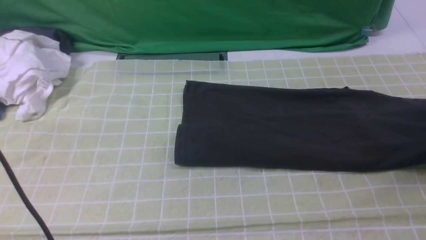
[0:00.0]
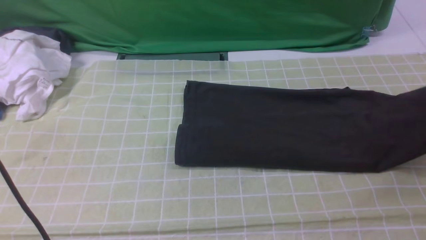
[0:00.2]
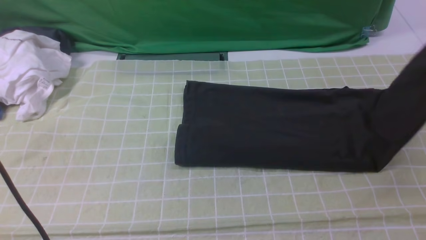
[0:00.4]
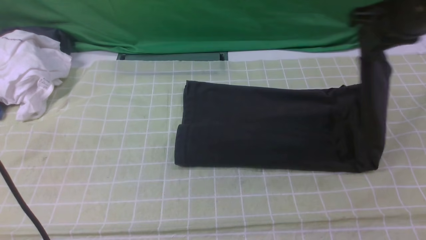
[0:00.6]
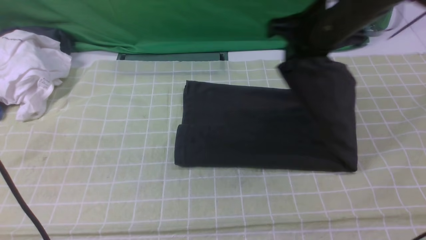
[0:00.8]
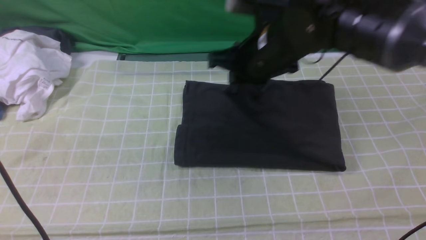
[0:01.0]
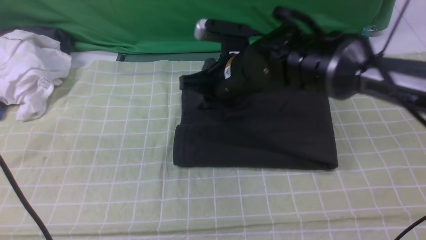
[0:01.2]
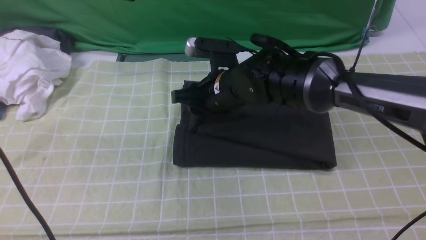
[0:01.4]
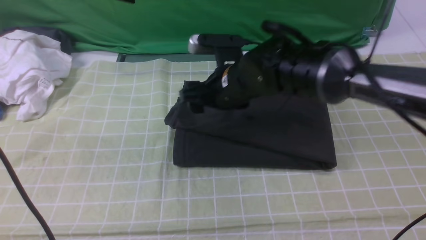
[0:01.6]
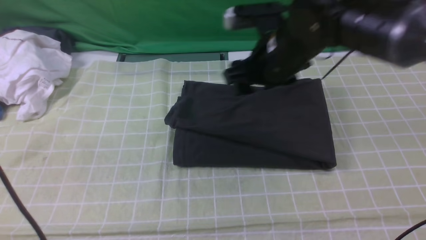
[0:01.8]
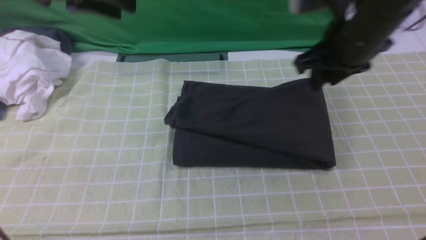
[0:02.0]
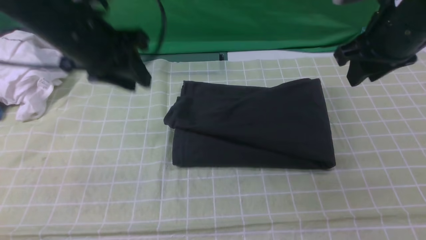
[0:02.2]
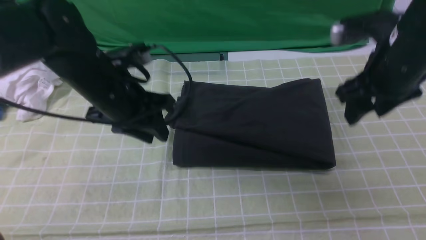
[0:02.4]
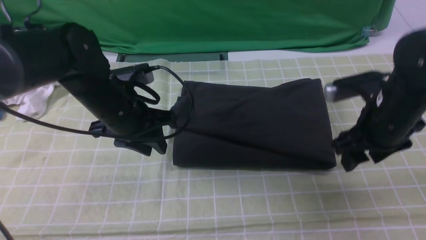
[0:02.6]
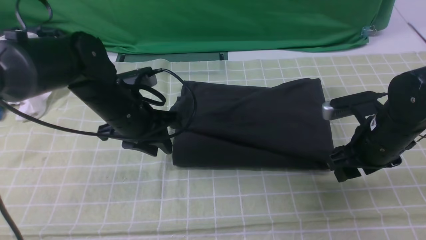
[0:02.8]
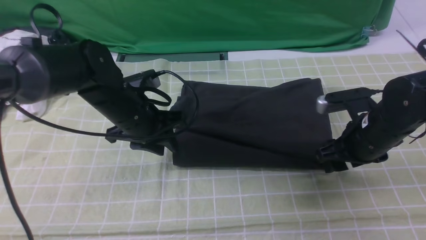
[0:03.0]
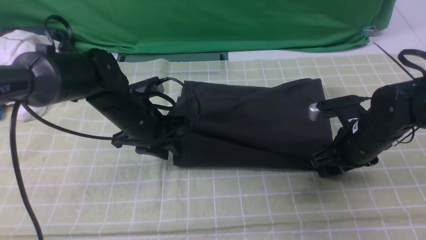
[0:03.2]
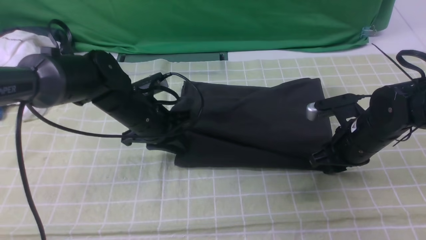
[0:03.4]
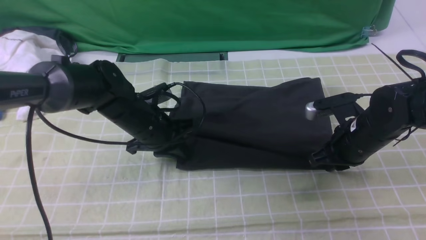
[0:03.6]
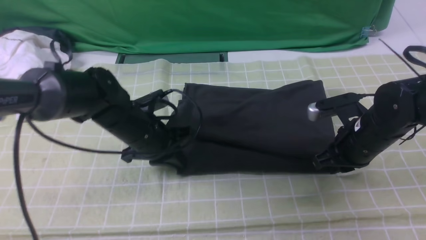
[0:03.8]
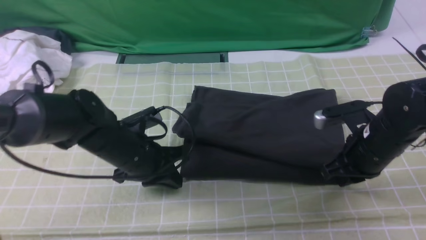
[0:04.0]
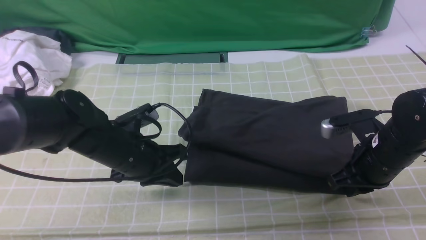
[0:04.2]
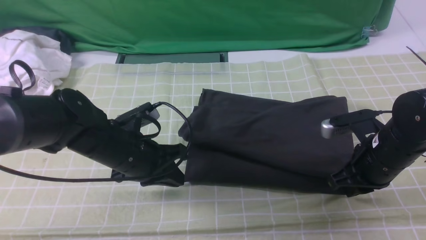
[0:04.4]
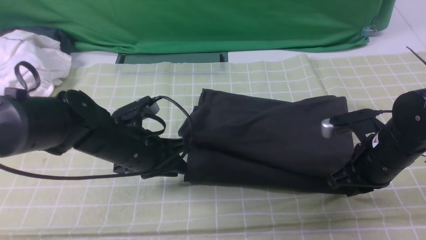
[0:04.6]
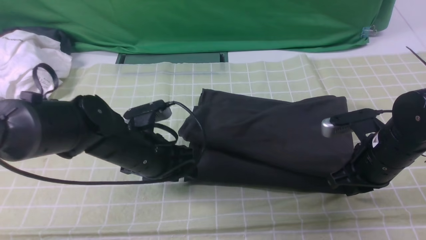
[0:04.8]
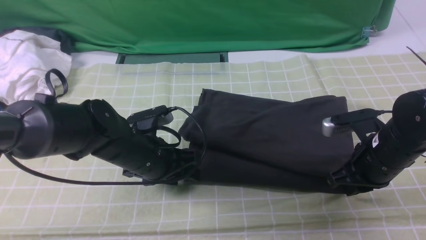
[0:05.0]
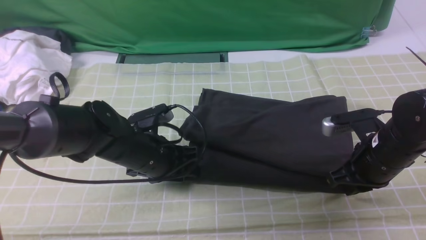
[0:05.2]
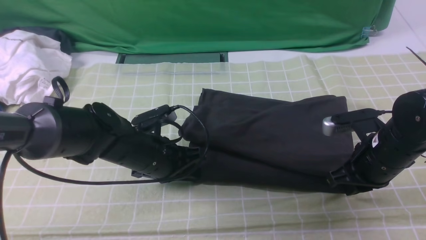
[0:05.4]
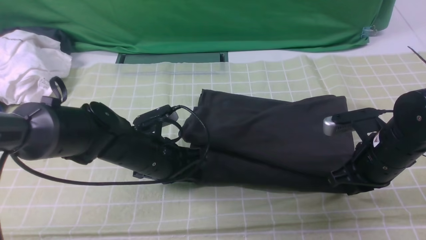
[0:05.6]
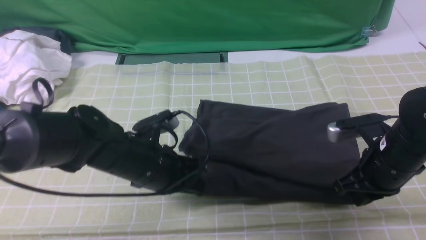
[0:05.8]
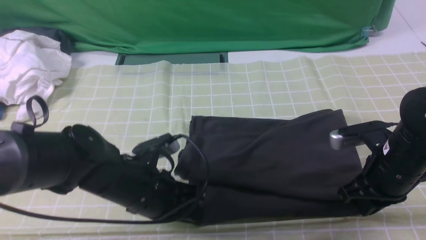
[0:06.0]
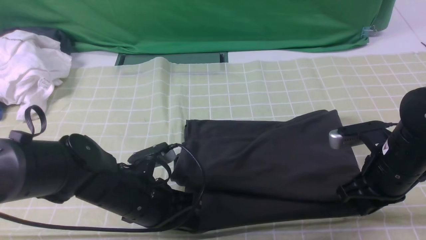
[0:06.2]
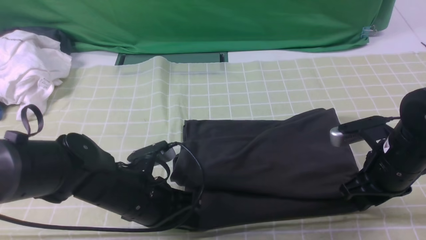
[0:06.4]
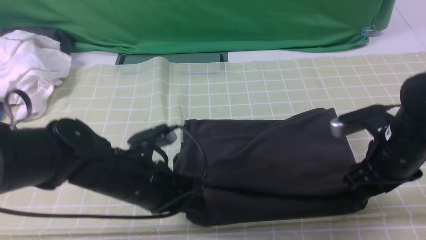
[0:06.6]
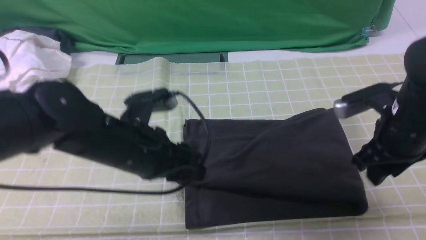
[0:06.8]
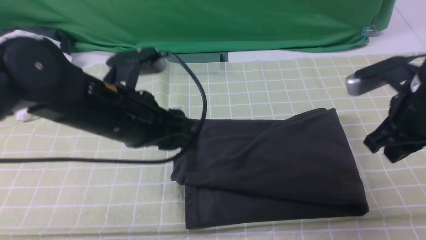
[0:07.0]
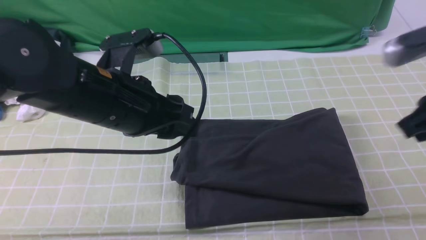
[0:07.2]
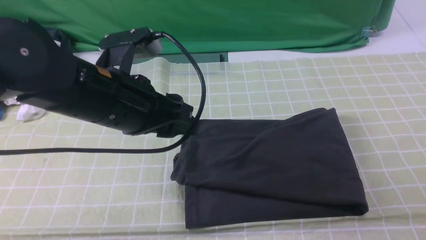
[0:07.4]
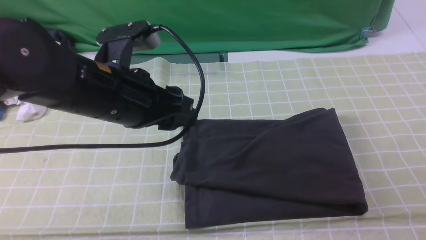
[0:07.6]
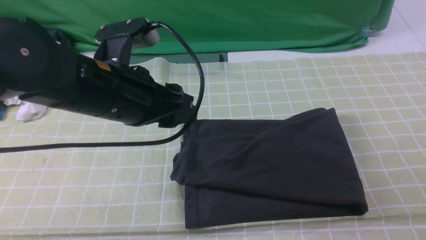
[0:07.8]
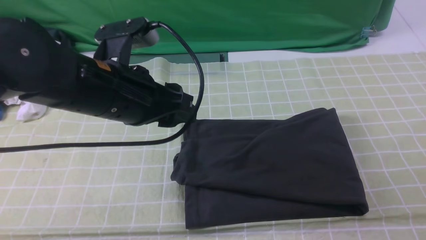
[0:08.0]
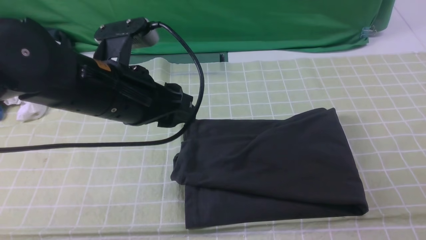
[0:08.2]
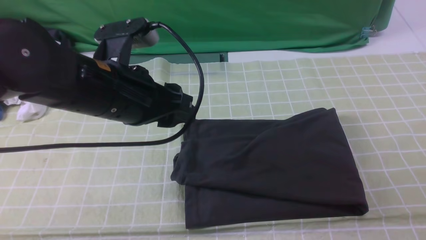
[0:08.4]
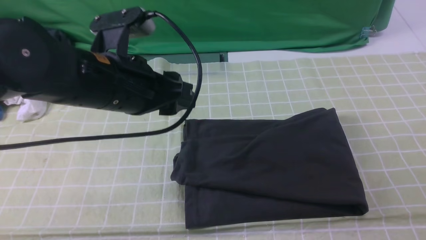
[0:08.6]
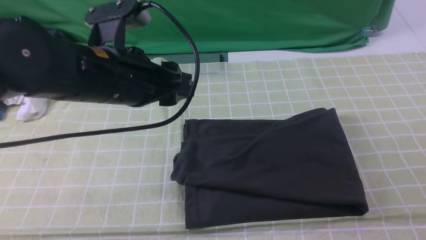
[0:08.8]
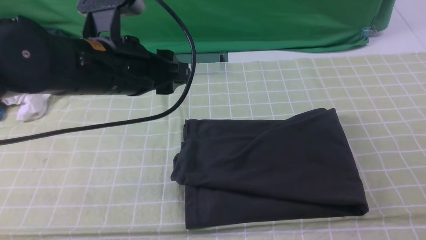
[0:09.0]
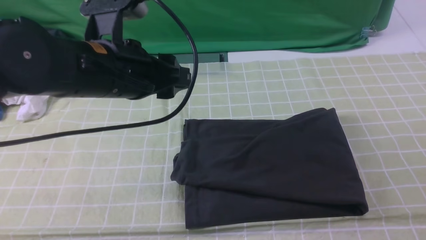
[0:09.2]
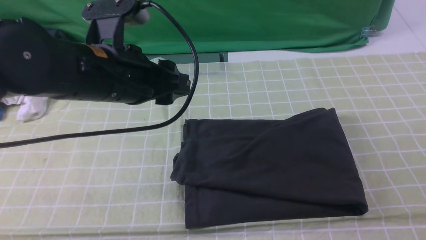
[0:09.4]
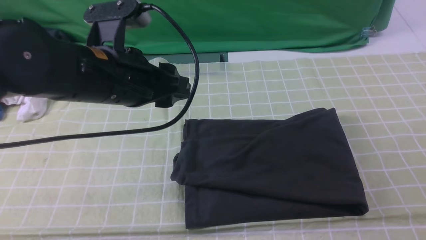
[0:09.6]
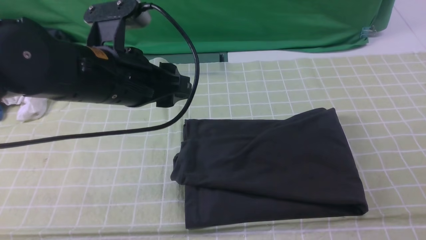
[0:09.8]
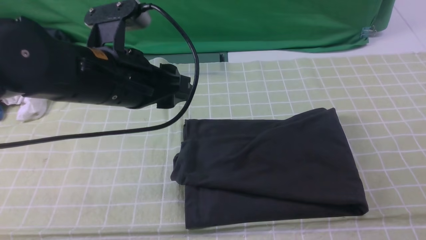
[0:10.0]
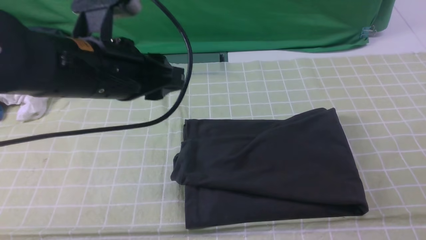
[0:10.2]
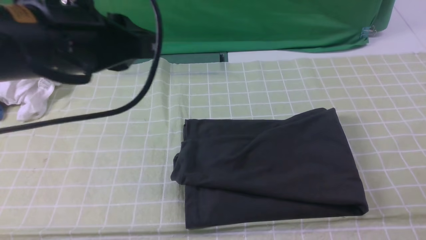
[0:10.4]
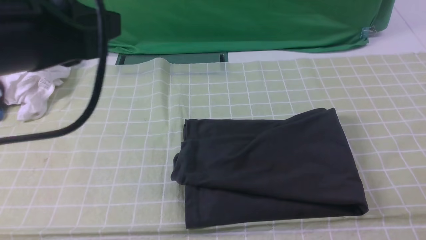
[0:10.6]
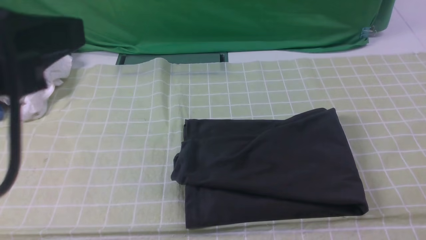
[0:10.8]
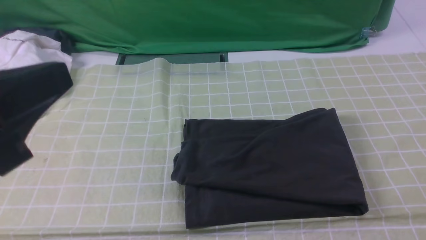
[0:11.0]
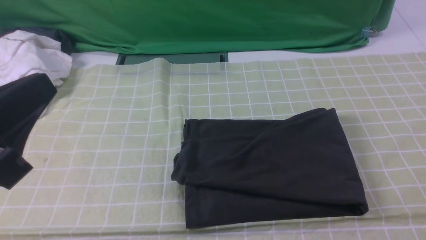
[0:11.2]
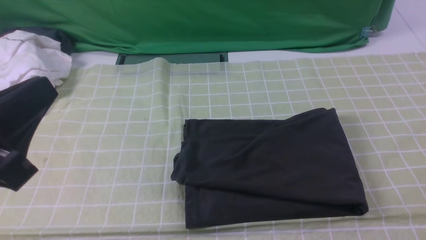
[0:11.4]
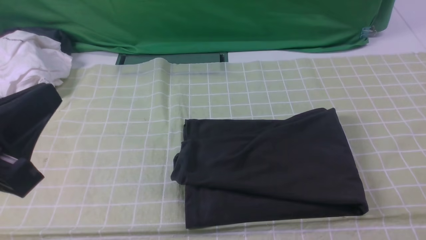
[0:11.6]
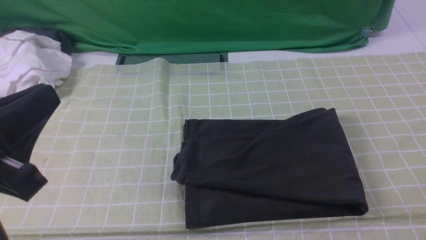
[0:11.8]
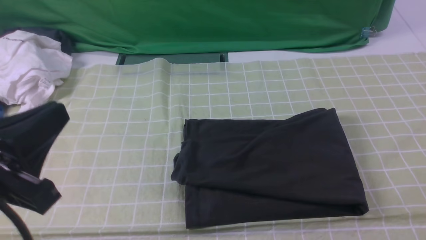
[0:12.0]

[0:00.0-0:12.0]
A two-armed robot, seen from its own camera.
Step, 0:00.0 to 0:01.6: use the right arm to drag the right edge of the fabric to the left and folds it over the left edge.
0:00.0 to 0:01.6: The right gripper goes roughly 40 cm to the left, and opens.
0:01.6 to 0:03.0: The right gripper goes approximately 20 cm to the right and downward; the left gripper travels downward by roughly 20 cm.
0:03.0 to 0:04.4: The right gripper closes its fingers, while the left gripper is displaced backward by roughly 5 cm, and closes its fingers.
0:04.4 to 0:06.0: The left gripper shifts by approximately 5 cm, and opens and closes again.
0:06.0 to 0:07.6: The left gripper heads upward, covering some 15 cm, and opens. Meanwhile the right gripper is displaced upward and backward by about 30 cm, and opens, then closes once more.
0:07.6 to 0:09.0: The right gripper heads downward, covering about 10 cm.
0:09.0 to 0:10.4: The right gripper heads downward, covering roughly 10 cm. Meanwhile the left gripper moves upward and backward, approximately 10 cm, and closes its fingers.
0:10.4 to 0:12.0: The left gripper moves backward, downward and to the left, approximately 15 cm.

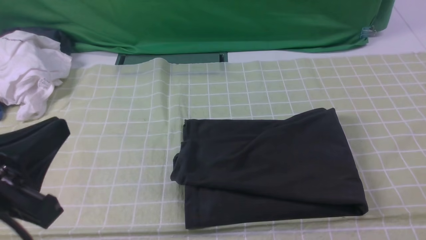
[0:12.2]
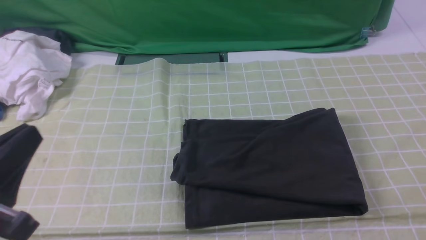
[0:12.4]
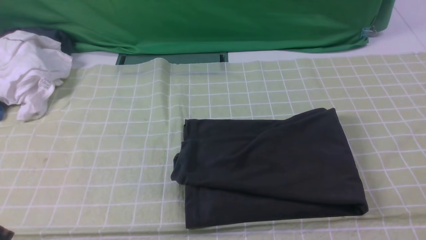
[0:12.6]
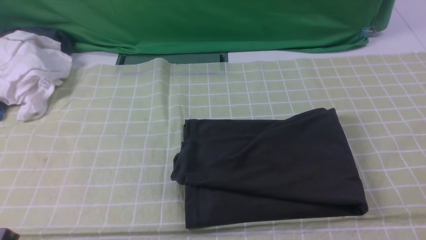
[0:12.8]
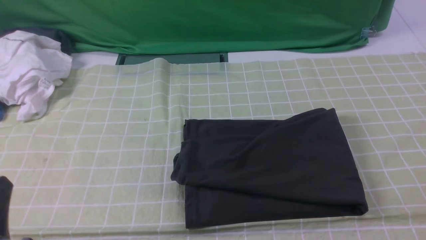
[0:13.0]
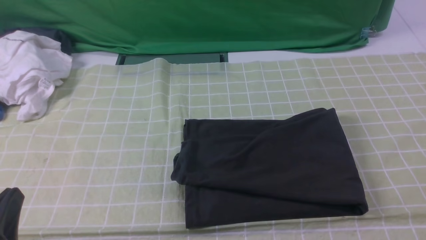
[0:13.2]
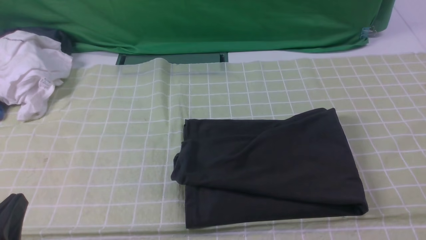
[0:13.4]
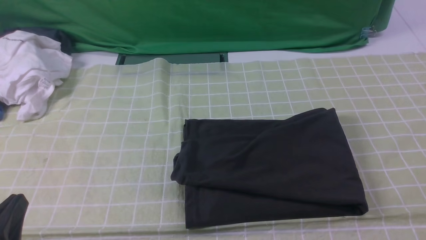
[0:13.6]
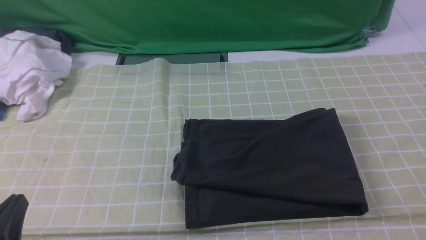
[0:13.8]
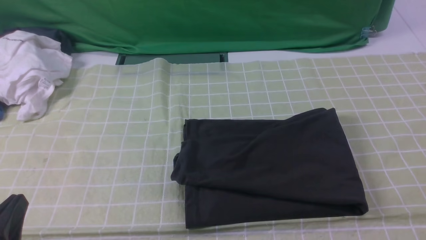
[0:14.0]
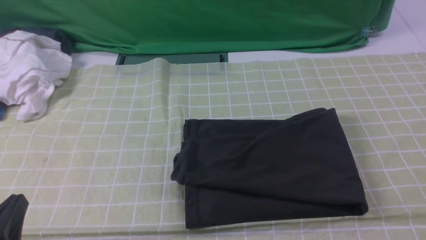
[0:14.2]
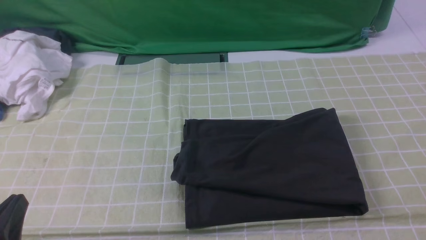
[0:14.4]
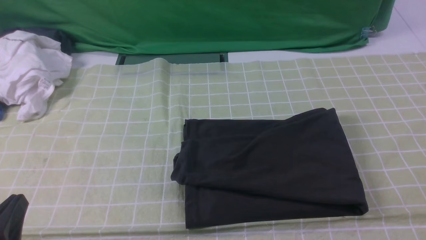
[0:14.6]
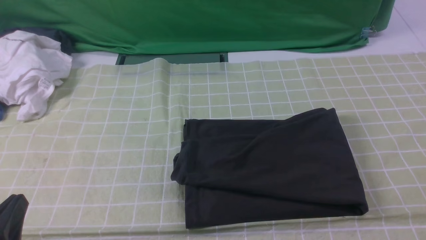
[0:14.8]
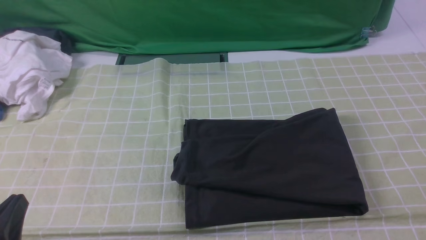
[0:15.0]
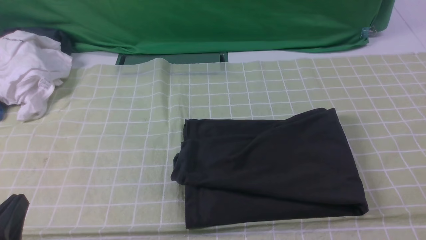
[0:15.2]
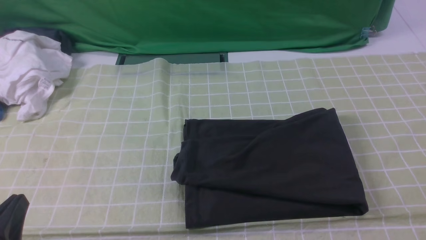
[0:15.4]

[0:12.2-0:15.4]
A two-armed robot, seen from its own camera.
0:12.2 to 0:13.8: The left gripper heads downward, covering approximately 10 cm.
0:13.8 to 0:15.4: Neither gripper changes place.
